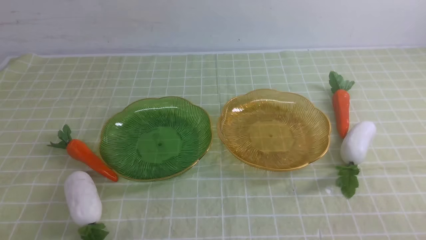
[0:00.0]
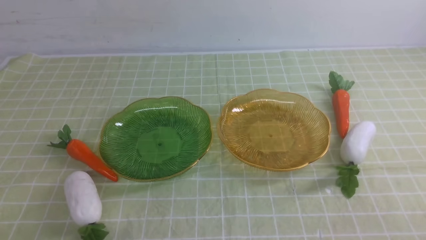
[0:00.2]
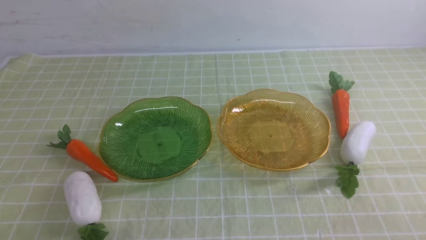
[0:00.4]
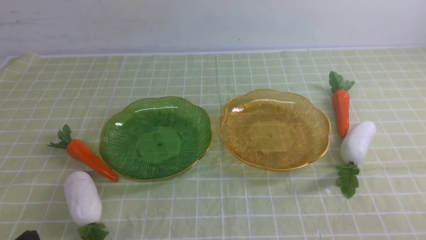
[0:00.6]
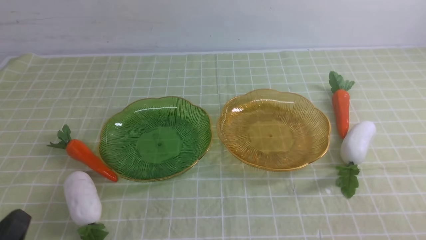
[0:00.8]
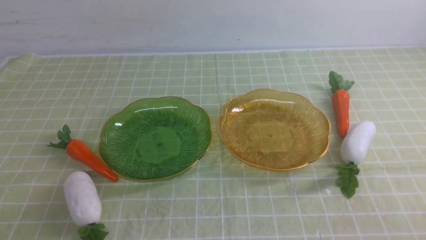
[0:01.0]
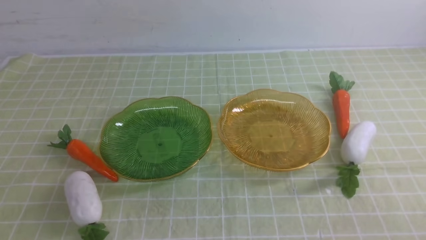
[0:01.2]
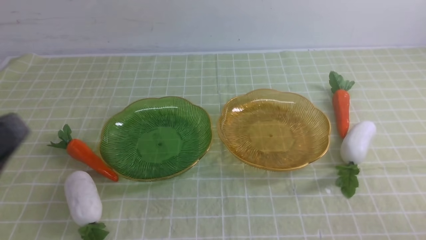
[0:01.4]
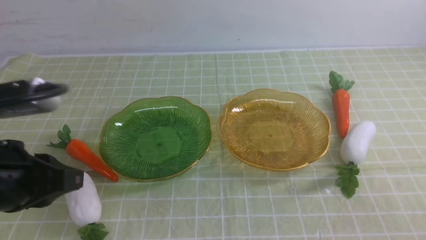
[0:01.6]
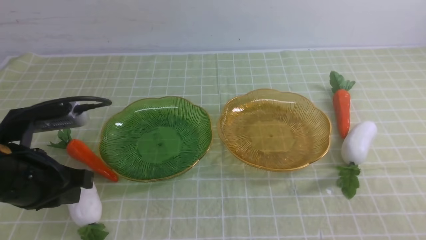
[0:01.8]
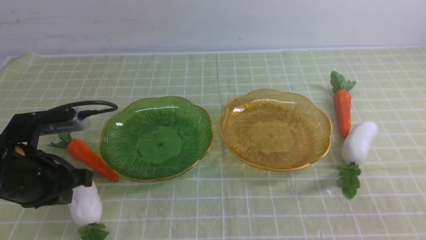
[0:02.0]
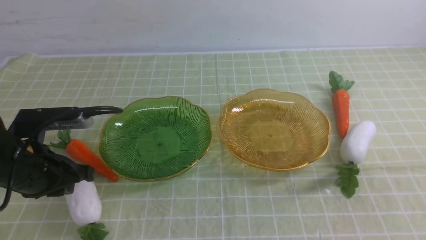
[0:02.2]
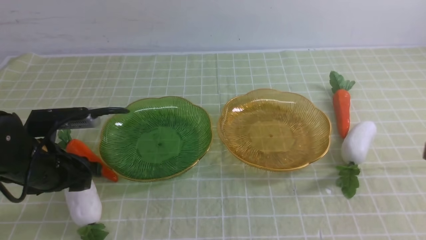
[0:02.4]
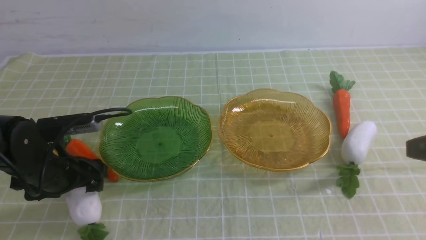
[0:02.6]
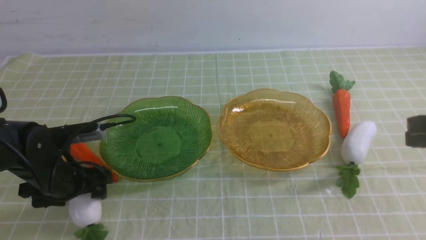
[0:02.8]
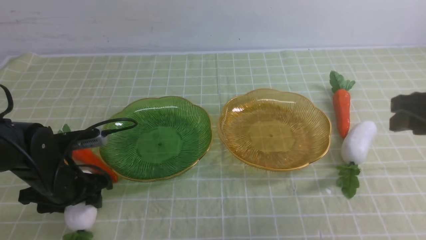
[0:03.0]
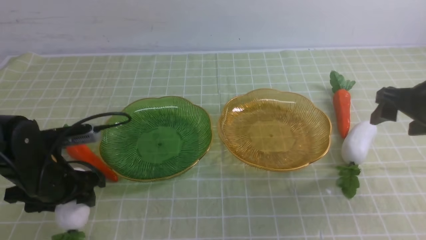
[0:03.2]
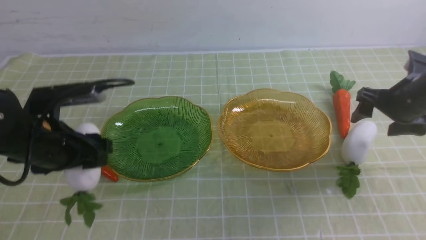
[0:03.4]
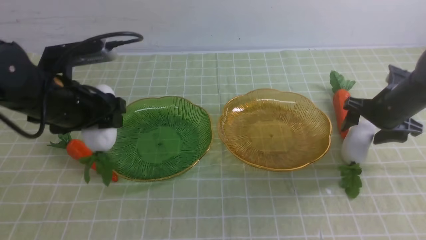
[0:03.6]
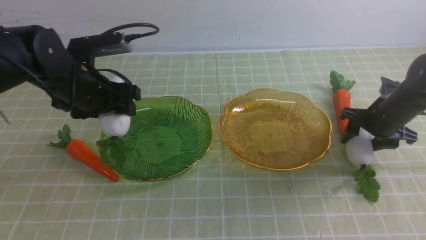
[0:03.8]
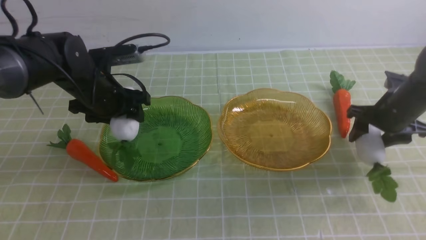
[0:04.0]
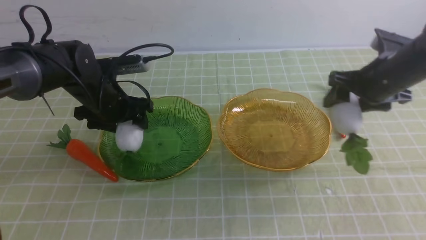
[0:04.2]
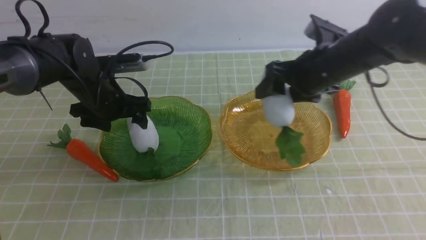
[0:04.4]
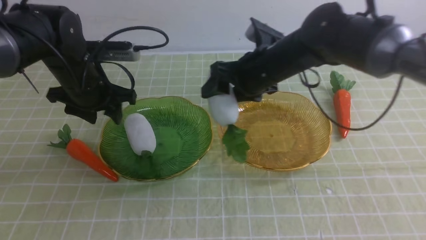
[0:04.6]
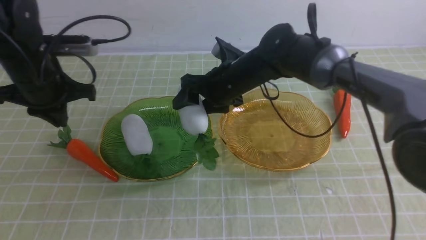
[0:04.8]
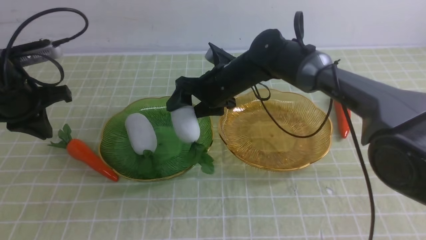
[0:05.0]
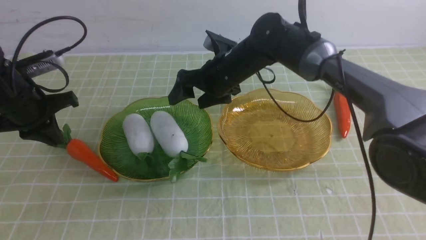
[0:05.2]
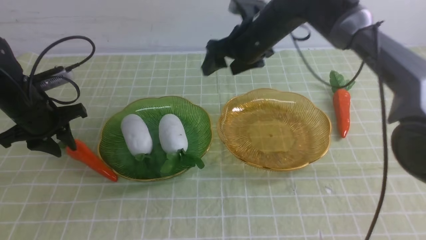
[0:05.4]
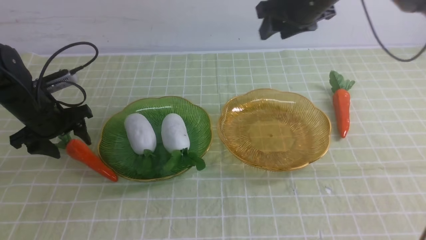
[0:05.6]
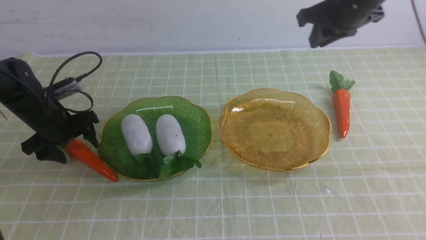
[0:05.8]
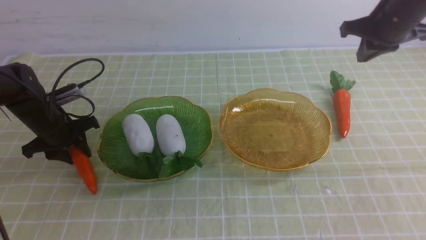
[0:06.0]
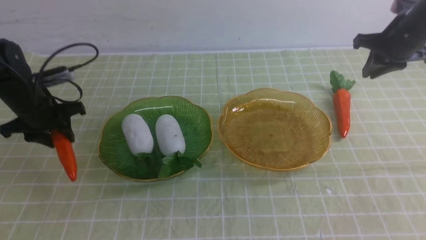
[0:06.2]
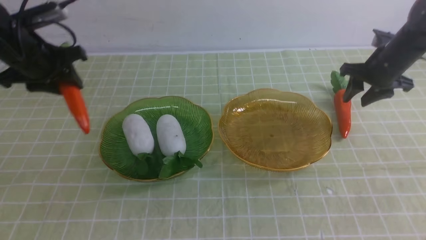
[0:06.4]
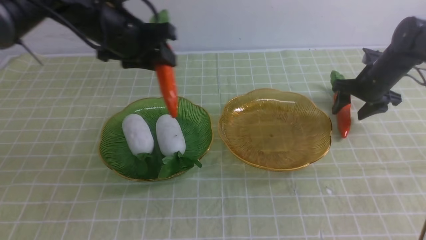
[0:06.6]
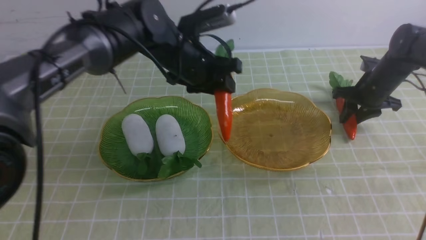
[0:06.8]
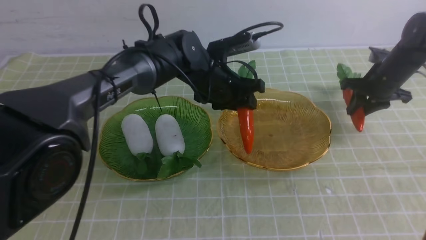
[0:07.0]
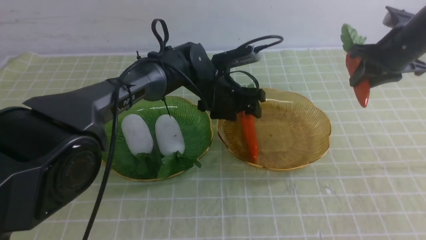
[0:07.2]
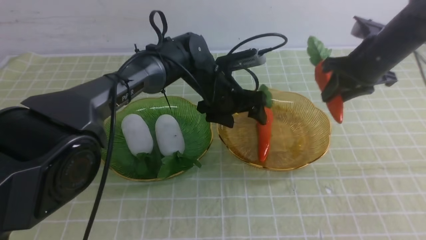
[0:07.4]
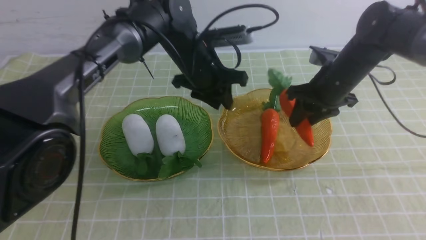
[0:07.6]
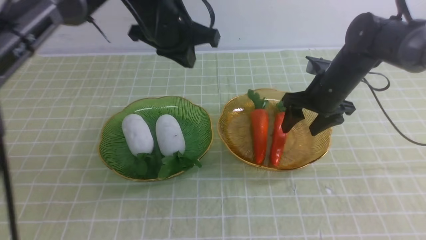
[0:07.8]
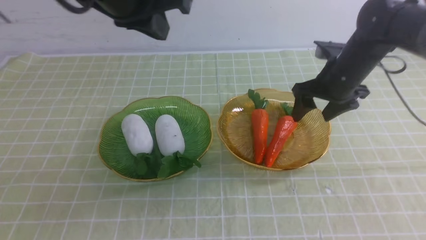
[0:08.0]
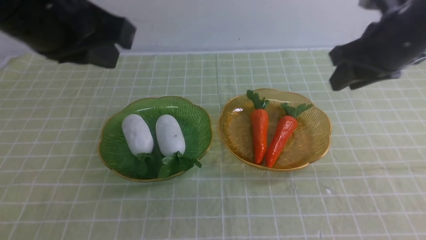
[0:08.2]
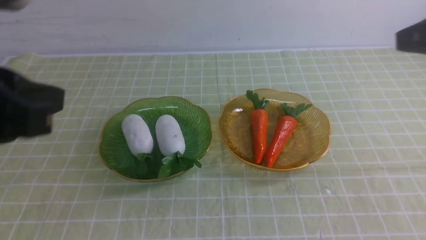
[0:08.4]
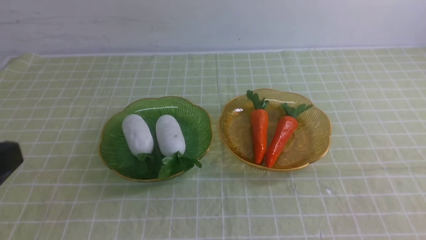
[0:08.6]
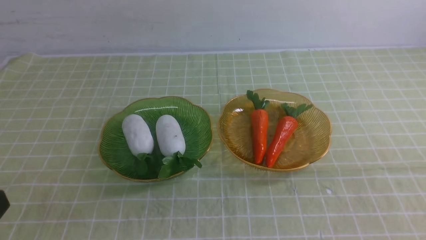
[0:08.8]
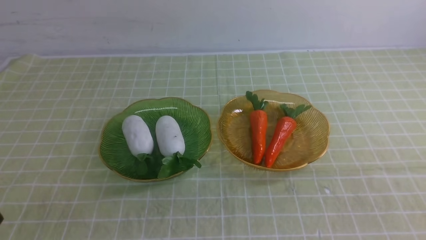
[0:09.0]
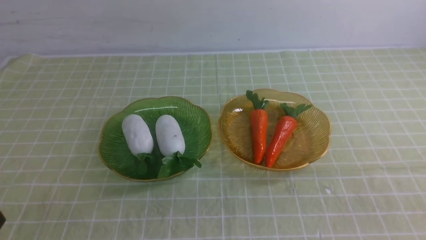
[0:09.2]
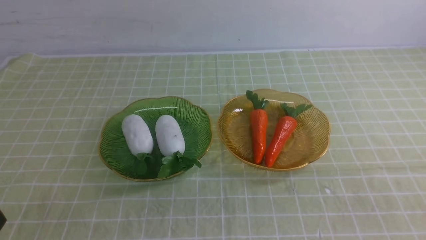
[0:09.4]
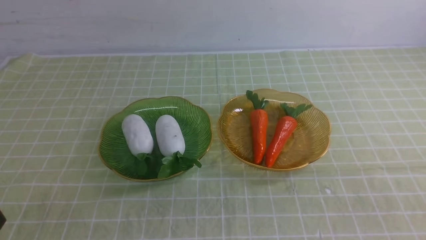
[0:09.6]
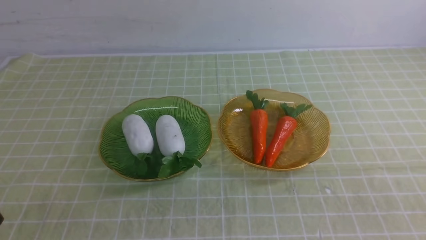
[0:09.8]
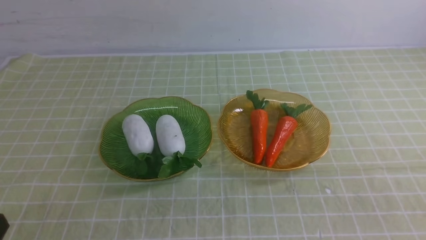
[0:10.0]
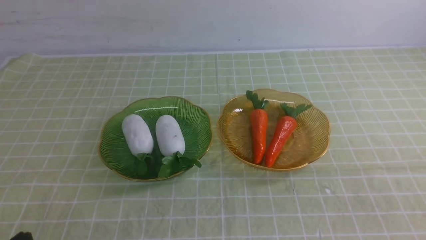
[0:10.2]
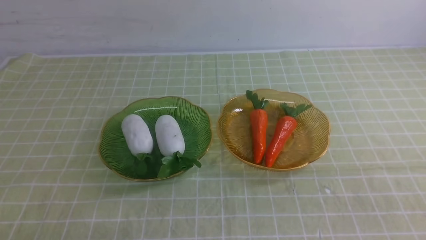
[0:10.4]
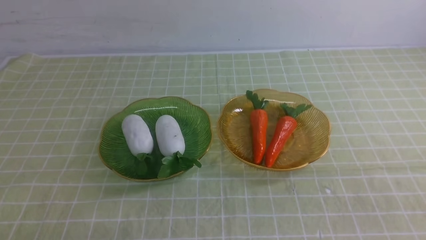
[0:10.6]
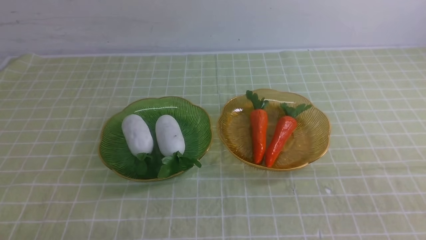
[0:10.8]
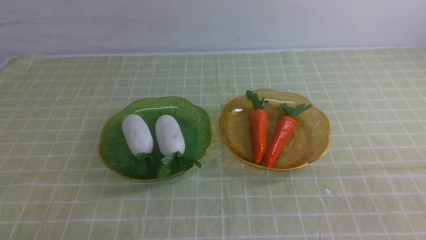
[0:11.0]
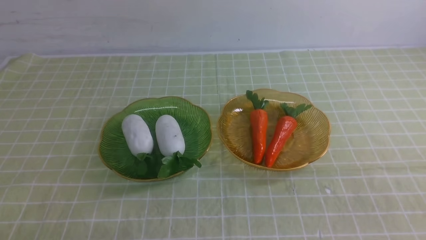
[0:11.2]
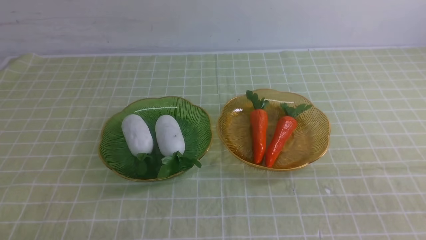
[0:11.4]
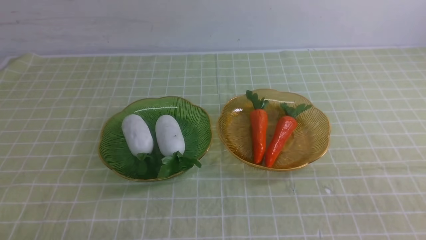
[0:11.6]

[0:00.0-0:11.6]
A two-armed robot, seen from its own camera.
Step, 0:00.0 to 0:04.2: use the left arm to grab a radish and put it into the left plate.
Step, 0:04.4 to 0:05.6: use the right arm to grab a radish and put it into the left plate.
Step, 0:05.8 to 0:07.2: use the left arm to grab a carrot and put it into the right plate.
Step, 0:07.6 to 0:08.2: use the right arm to grab a carrot and put it into the right plate.
0:00.0 to 0:01.4: The left gripper moves upward, roughly 15 cm.
0:01.4 to 0:02.8: The left gripper goes approximately 25 cm forward and downward, and opens up, while the right gripper shifts about 20 cm forward and upward.
0:02.8 to 0:04.4: The right gripper goes approximately 20 cm forward and to the left, and opens up, while the left gripper heads forward and upward, covering roughly 15 cm.
0:04.4 to 0:05.8: The right gripper shifts about 10 cm to the right, upward and forward, and closes, while the left gripper goes about 10 cm to the left and downward, and closes, then opens again.
0:05.8 to 0:07.2: The left gripper shifts approximately 30 cm to the right, while the right gripper travels downward and to the right by about 10 cm.
0:07.2 to 0:08.8: The left gripper moves backward and to the left, approximately 50 cm, and closes its fingers, while the right gripper is displaced backward by some 40 cm, and closes its fingers.

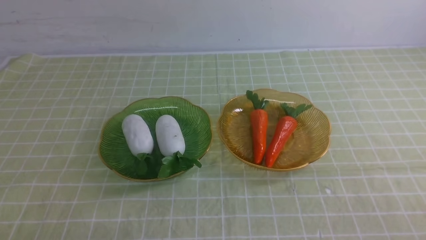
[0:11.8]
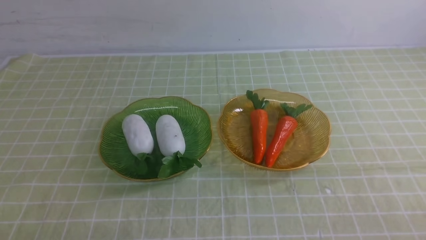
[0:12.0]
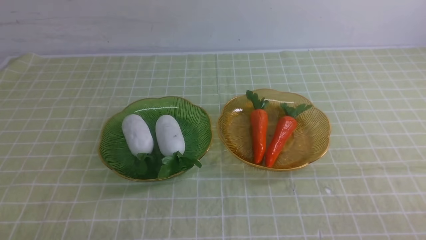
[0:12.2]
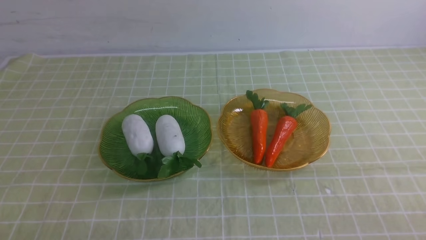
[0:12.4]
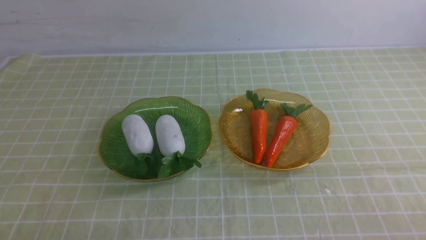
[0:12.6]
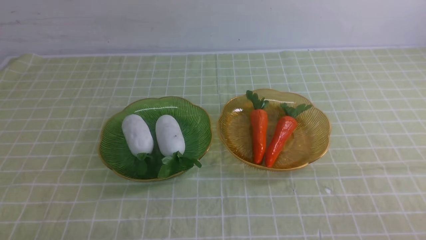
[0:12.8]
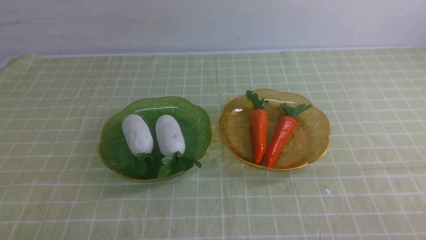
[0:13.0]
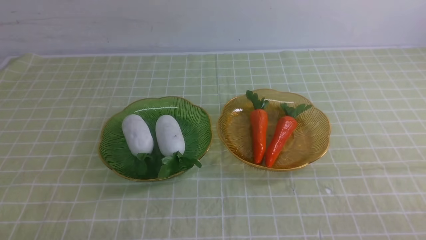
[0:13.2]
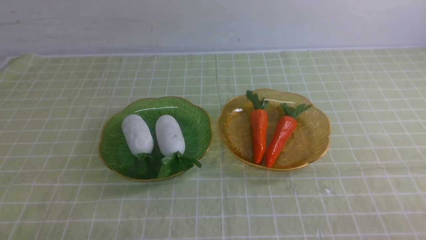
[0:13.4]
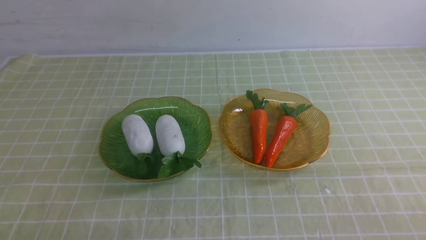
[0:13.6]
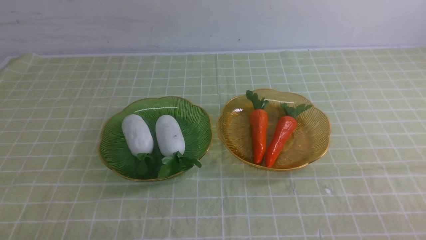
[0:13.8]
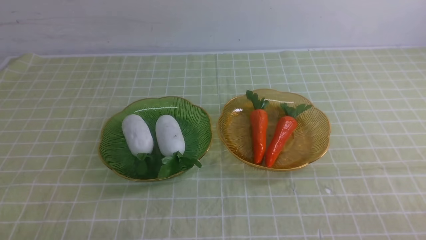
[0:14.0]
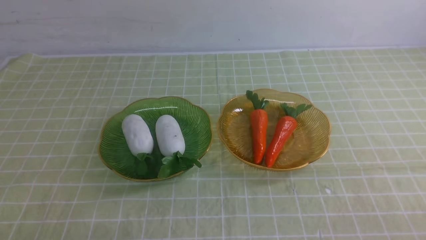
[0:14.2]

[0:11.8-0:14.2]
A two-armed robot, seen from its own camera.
0:13.0 to 0:14.2: Neither gripper changes place.
